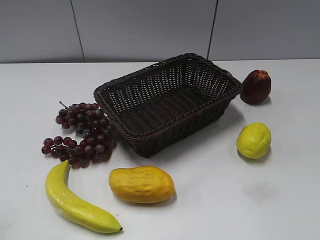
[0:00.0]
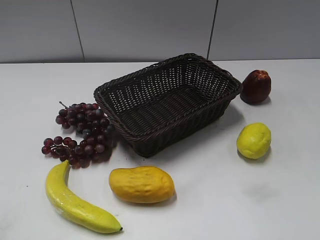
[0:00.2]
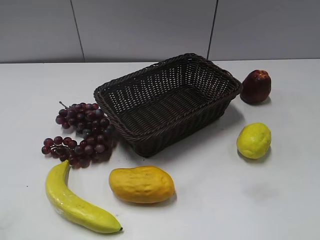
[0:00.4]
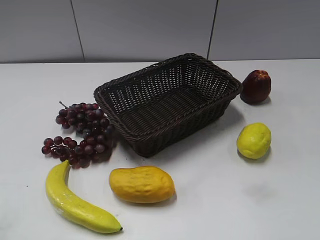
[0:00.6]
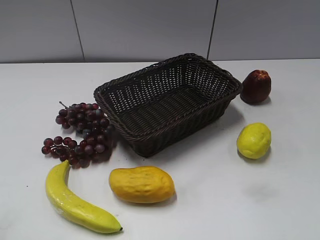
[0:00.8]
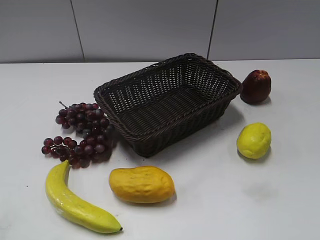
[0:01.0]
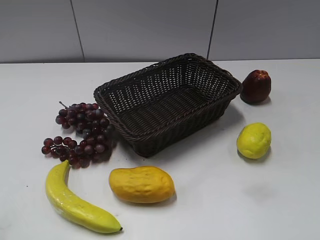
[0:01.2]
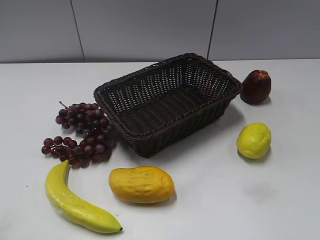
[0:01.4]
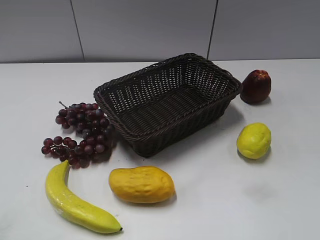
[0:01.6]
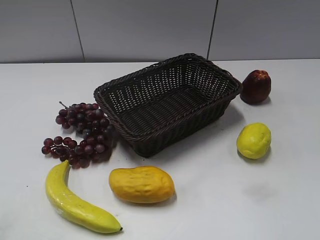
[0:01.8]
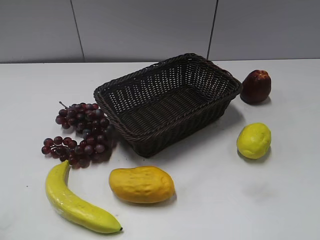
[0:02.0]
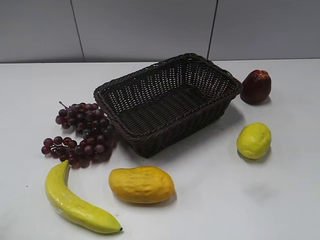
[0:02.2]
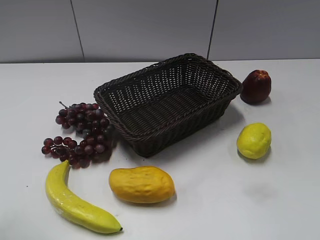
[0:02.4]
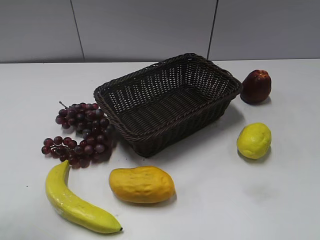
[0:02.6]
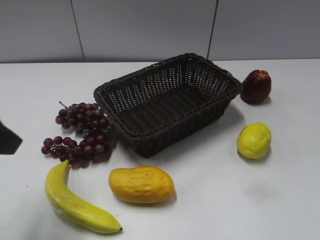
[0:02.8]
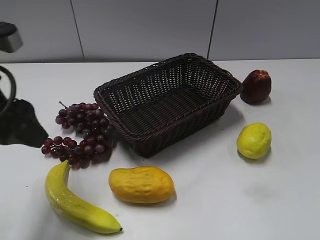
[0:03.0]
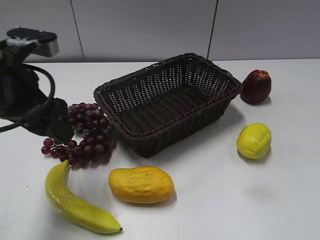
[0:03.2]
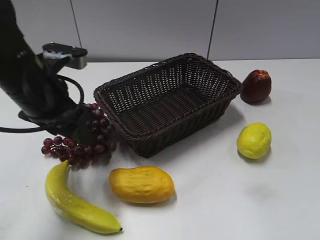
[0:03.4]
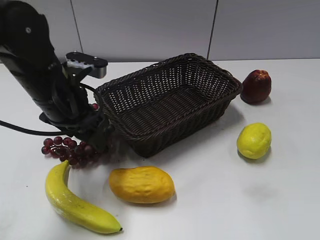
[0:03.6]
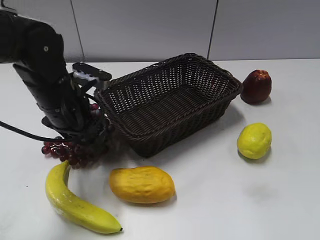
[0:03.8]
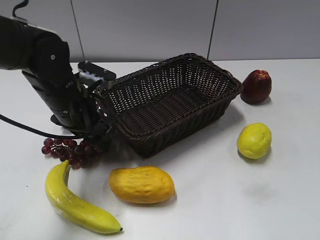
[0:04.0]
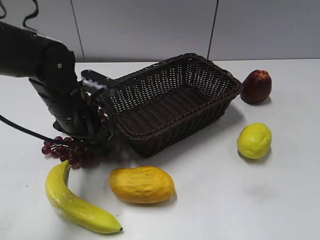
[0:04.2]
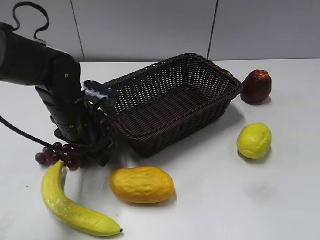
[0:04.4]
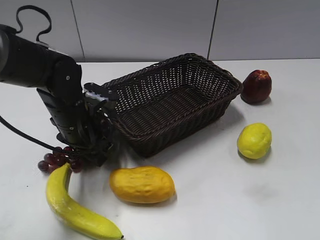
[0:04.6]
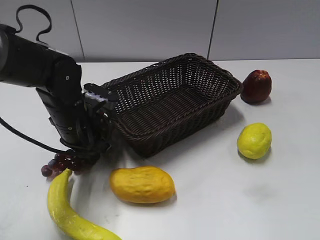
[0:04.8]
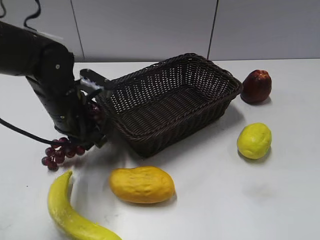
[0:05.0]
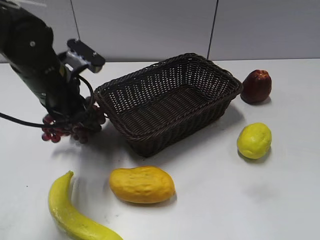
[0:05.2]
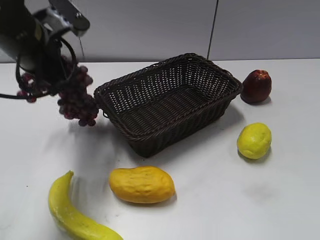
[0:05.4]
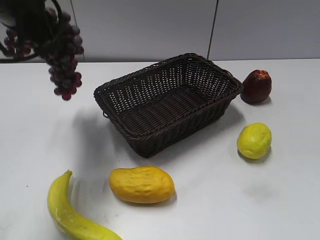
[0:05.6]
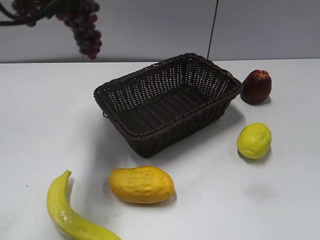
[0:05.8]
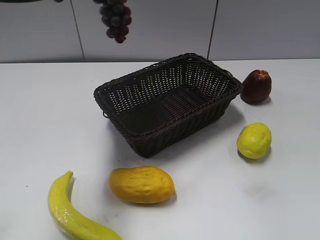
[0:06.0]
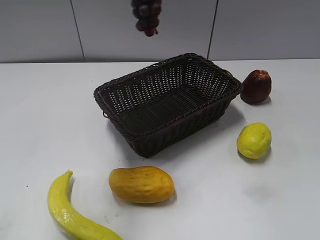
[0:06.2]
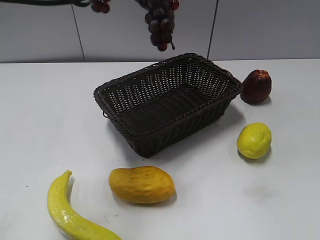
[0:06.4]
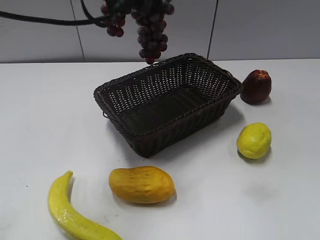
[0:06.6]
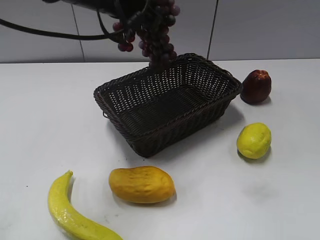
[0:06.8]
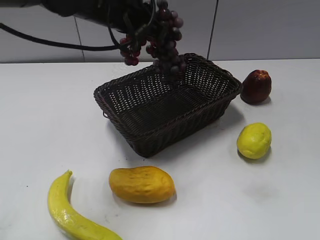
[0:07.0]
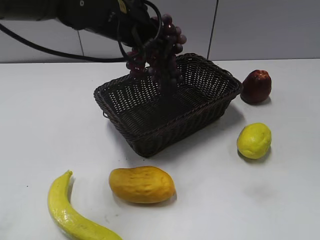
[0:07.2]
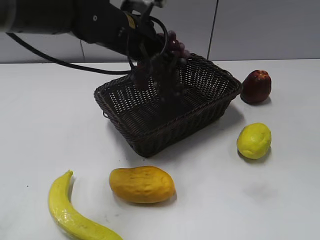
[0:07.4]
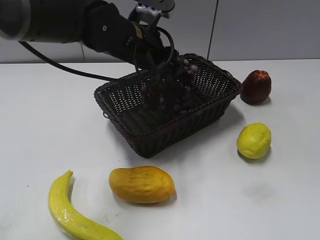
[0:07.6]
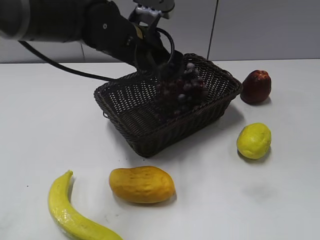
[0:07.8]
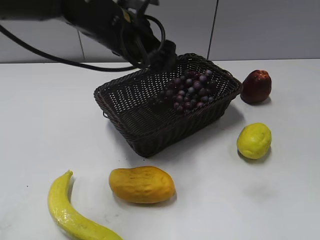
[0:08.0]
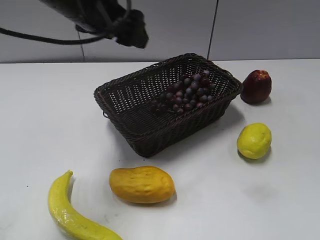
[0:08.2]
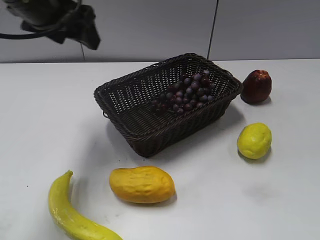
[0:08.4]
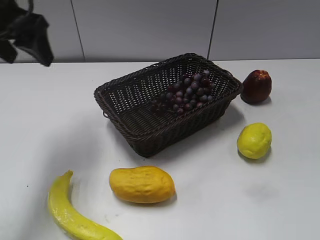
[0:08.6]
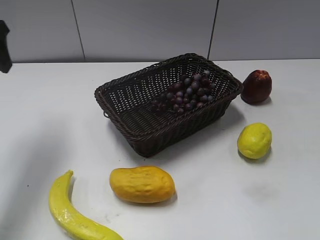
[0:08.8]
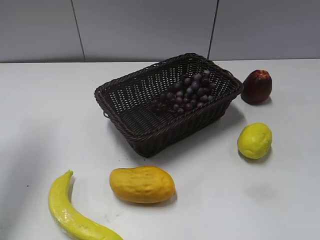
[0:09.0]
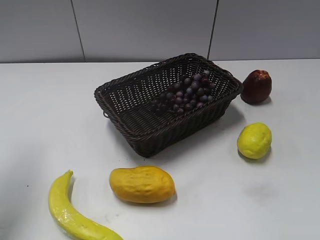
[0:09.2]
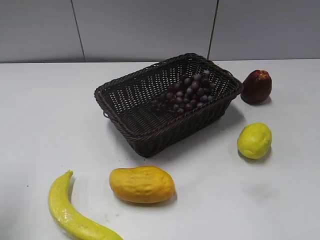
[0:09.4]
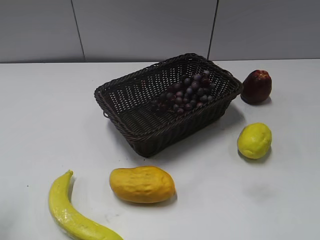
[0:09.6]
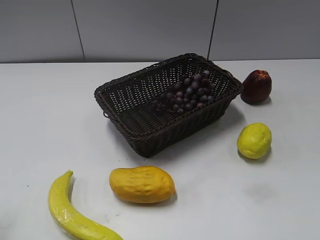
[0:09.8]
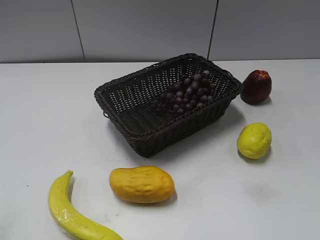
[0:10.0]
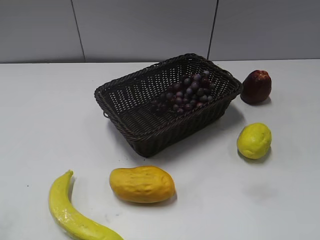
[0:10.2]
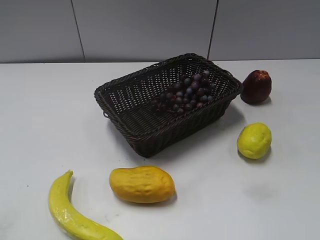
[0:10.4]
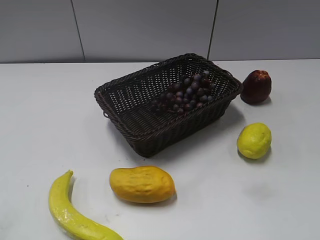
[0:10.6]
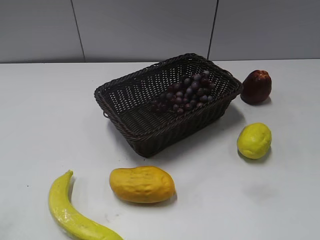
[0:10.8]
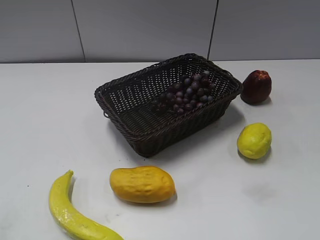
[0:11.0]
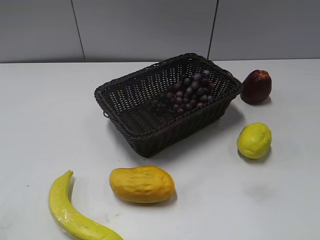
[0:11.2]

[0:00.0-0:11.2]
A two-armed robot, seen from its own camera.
Step, 0:02.8 to 0:04.6: Grasp the grape with left gripper.
Step, 0:04.8 to 0:07.8: Place the grape in the basket with left gripper.
0:01.6 to 0:03.2: The left gripper shifts roughly 25 cm forward and to the right.
0:03.2 to 0:04.8: The left gripper moves downward and forward, about 15 cm, and closes up.
0:04.8 to 0:06.4: The left gripper is displaced upward by approximately 25 cm.
0:06.4 to 0:08.0: The left gripper goes roughly 15 cm downward and to the right, and opens its fingers.
0:08.0 to 0:09.6: The left gripper travels to the left and backward by roughly 30 cm.
